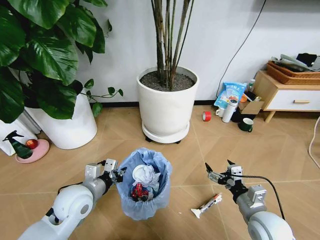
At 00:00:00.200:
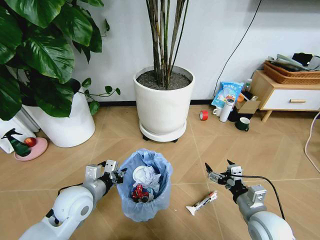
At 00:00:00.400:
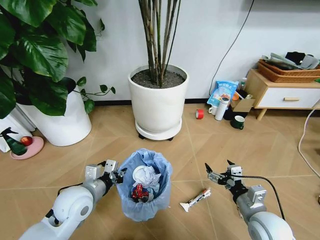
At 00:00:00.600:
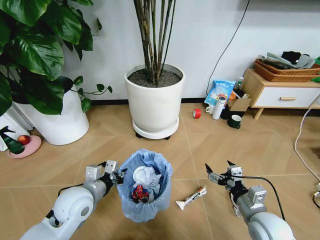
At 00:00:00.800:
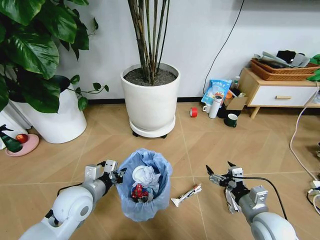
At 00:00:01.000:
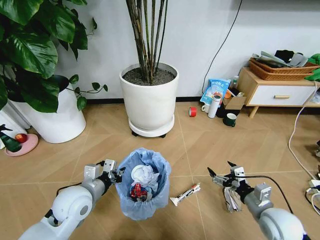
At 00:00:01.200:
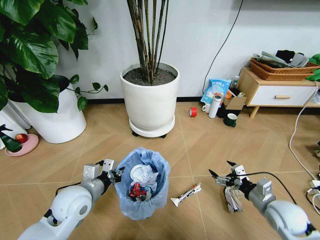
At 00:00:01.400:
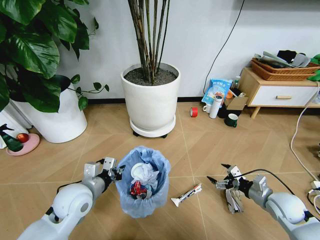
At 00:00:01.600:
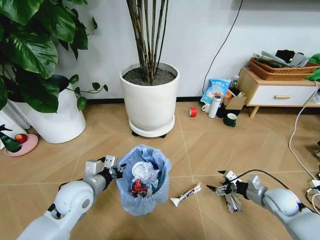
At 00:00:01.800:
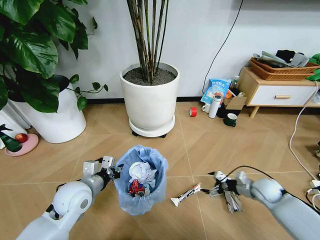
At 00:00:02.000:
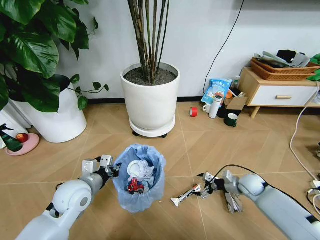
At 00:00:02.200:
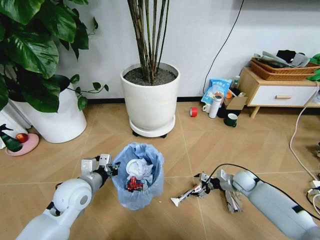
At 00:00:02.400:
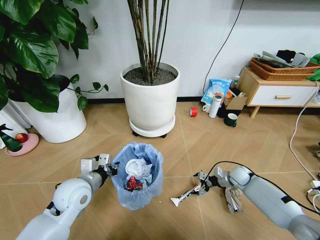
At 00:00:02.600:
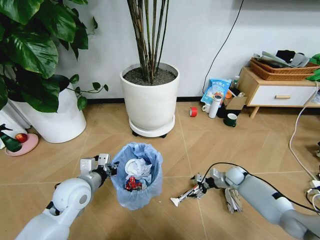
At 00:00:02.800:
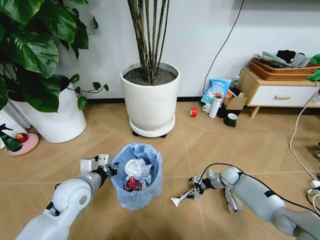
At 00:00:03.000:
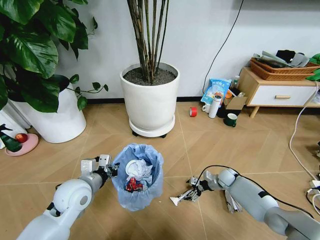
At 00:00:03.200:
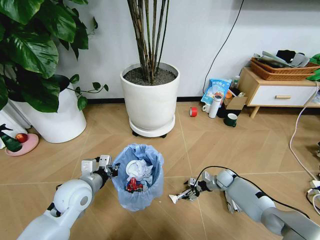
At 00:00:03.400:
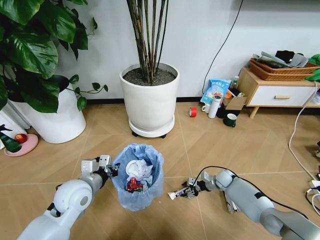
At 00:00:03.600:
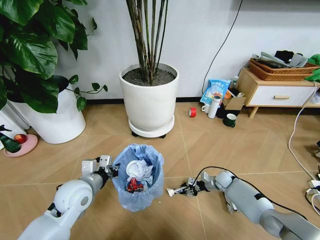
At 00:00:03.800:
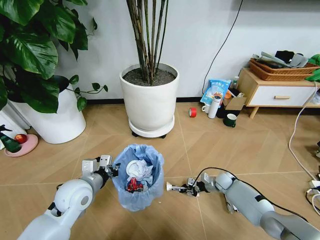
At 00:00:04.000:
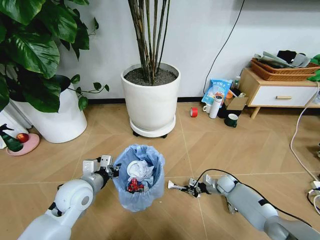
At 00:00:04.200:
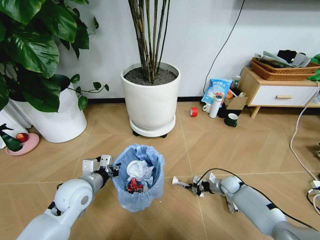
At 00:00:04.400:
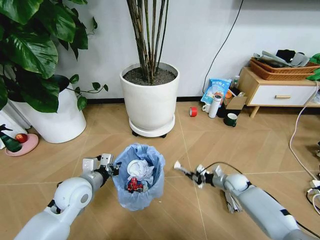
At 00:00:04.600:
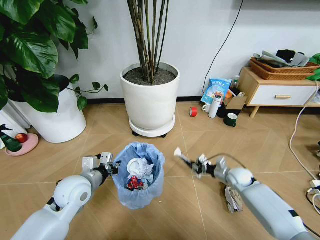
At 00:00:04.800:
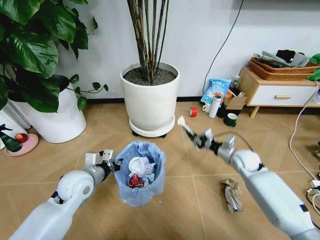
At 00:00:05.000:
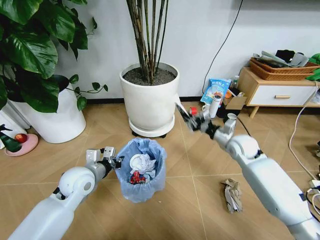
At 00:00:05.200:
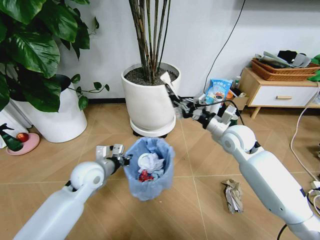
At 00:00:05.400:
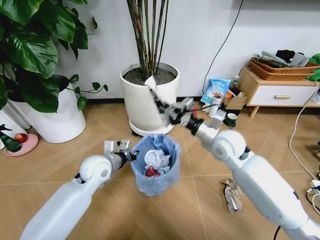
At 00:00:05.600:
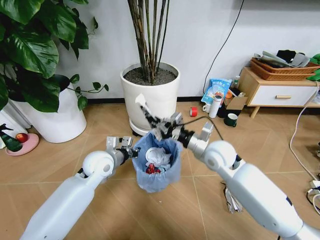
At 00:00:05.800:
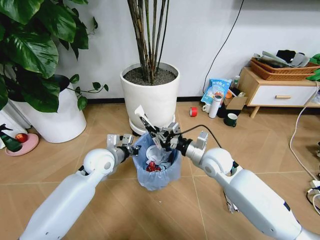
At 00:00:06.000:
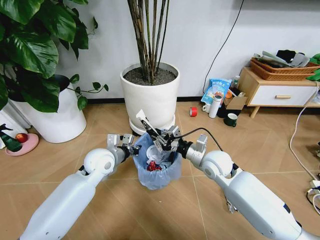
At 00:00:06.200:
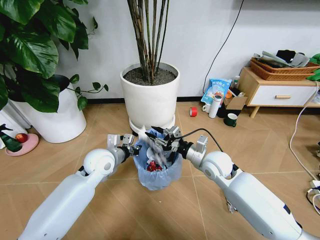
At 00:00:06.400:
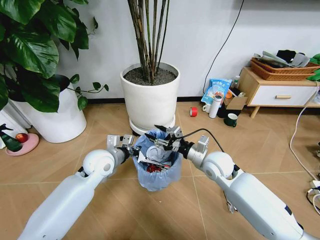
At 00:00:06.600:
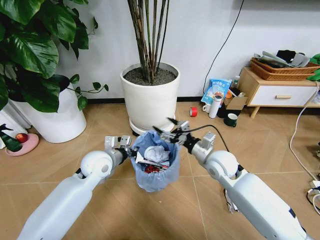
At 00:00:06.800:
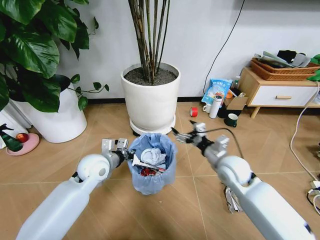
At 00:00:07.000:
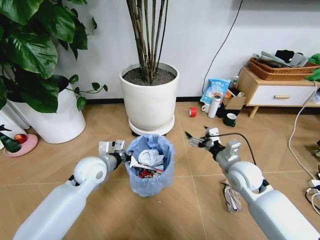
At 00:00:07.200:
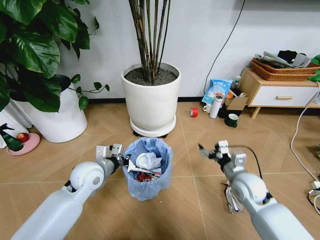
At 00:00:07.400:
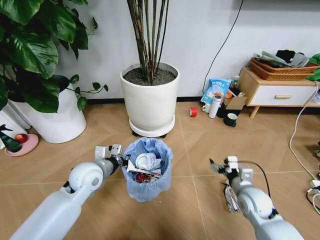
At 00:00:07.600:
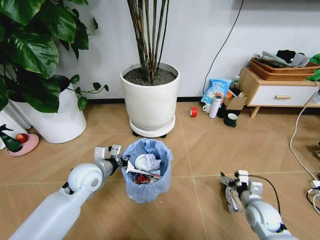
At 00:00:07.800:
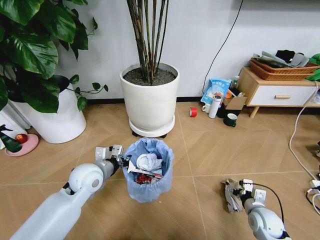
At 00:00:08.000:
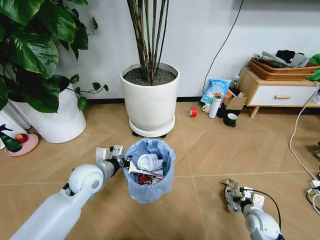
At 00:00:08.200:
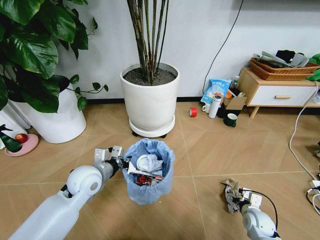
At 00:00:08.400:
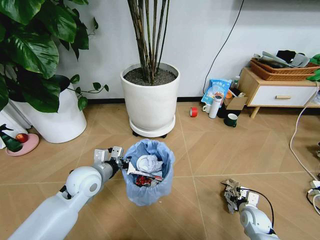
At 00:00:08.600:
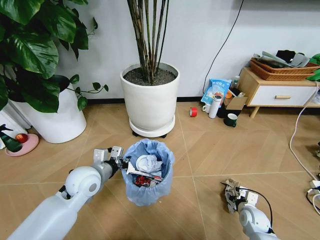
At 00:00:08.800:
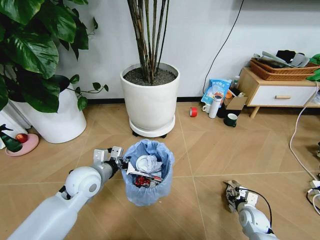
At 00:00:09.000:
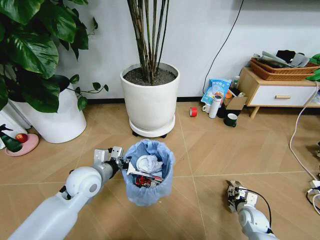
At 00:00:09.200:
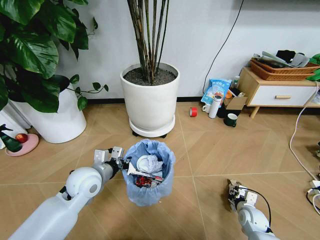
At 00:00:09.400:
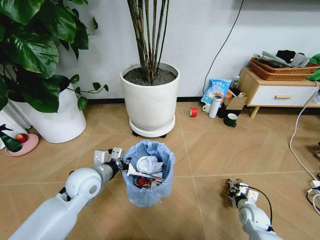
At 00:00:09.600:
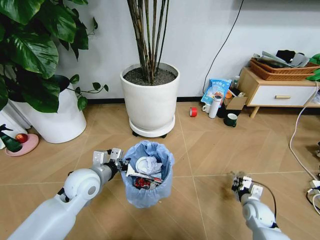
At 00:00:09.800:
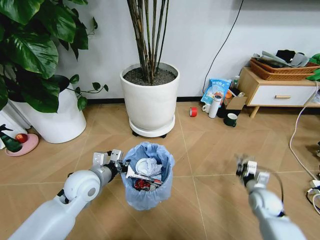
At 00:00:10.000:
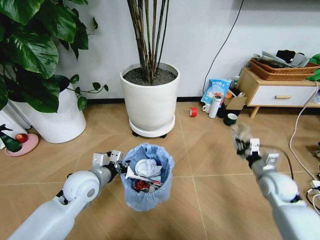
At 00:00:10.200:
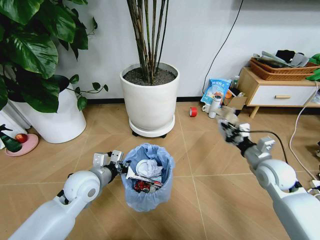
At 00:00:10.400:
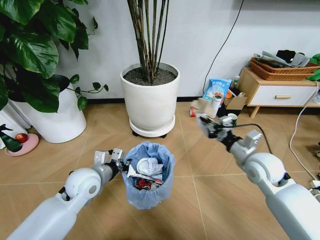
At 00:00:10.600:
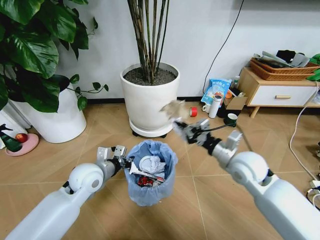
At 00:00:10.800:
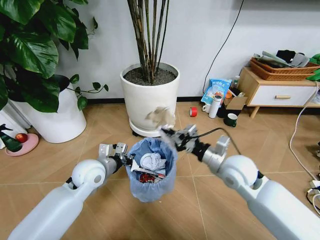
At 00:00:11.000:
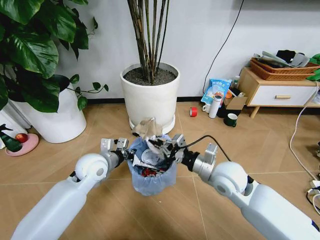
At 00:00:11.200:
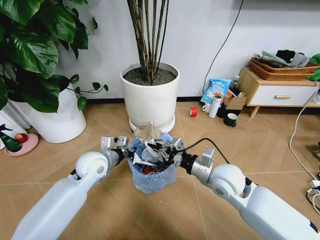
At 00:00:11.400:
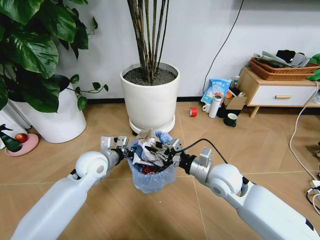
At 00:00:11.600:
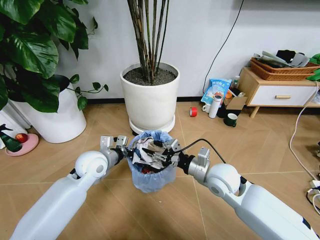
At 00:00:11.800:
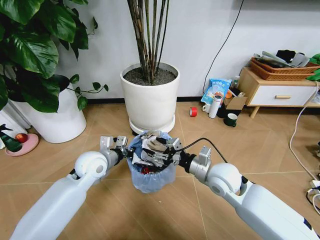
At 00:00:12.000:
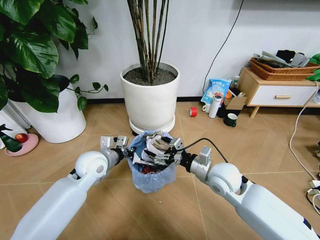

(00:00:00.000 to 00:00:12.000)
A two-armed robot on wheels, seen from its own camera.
Task of the whole recording: Pick up the trash bin and place the garbage on the floor into it.
00:00:00.000 - 00:00:01.600: The right gripper moves to the right, forward and downward, approximately 15 cm.
00:00:01.600 - 00:00:03.000: The right gripper shifts roughly 20 cm forward, downward and to the left.
00:00:03.000 - 00:00:04.400: The right gripper closes up.
00:00:04.400 - 00:00:06.000: The right gripper is displaced upward and to the left by approximately 25 cm. The left gripper heads forward and to the right, covering about 10 cm.
00:00:06.000 - 00:00:07.600: The left gripper travels backward by some 5 cm; the right gripper shifts roughly 25 cm to the right, downward and backward, and opens up.
00:00:07.600 - 00:00:09.000: The right gripper is displaced downward by roughly 10 cm, and closes up.
00:00:09.000 - 00:00:10.400: The right gripper is displaced upward by some 30 cm.
00:00:10.400 - 00:00:12.000: The right gripper heads to the left, covering some 10 cm, and opens. The left gripper travels forward by approximately 5 cm.

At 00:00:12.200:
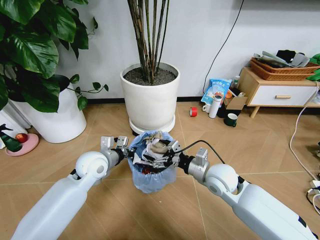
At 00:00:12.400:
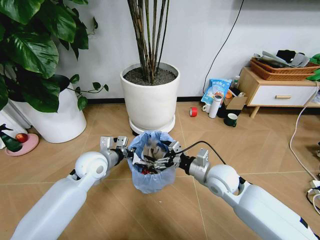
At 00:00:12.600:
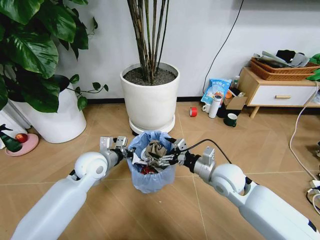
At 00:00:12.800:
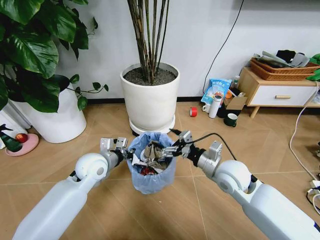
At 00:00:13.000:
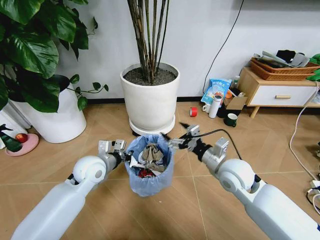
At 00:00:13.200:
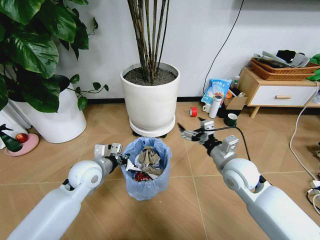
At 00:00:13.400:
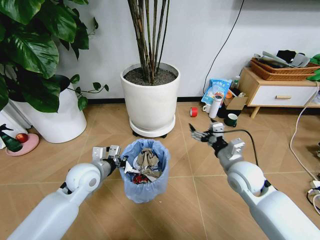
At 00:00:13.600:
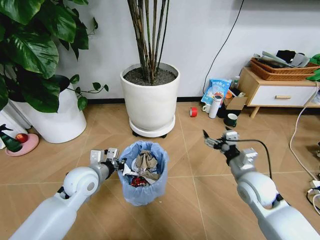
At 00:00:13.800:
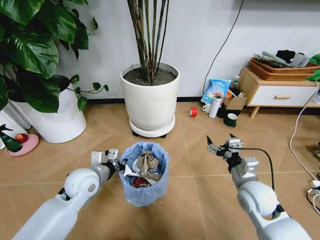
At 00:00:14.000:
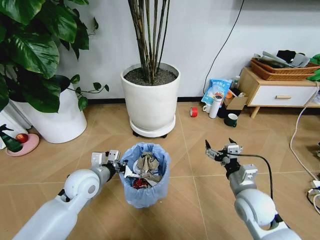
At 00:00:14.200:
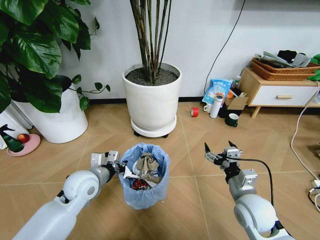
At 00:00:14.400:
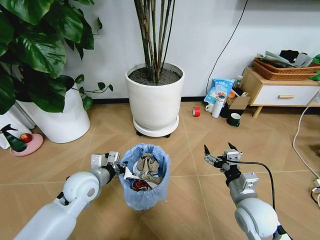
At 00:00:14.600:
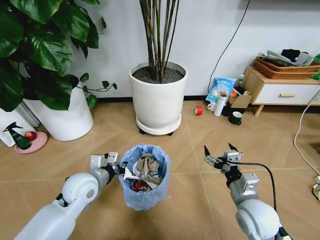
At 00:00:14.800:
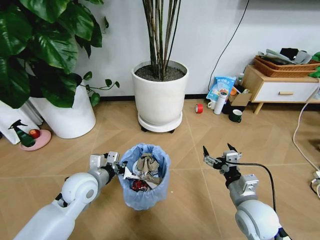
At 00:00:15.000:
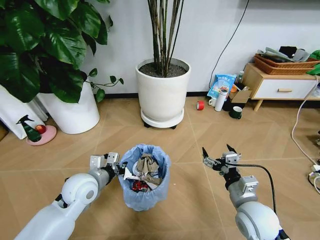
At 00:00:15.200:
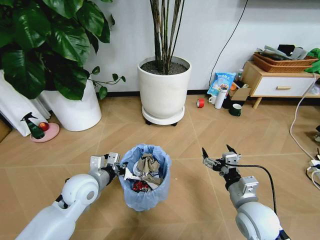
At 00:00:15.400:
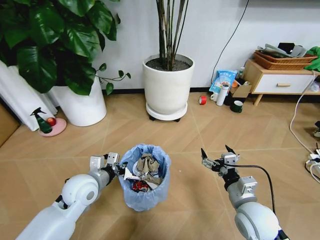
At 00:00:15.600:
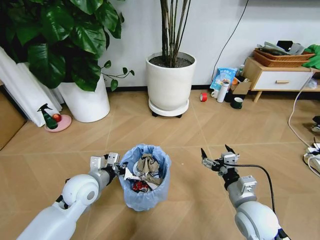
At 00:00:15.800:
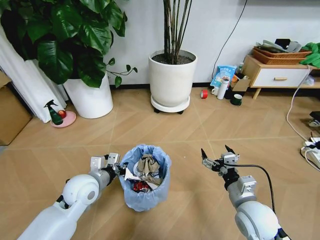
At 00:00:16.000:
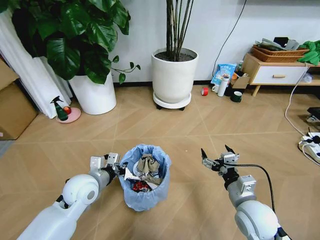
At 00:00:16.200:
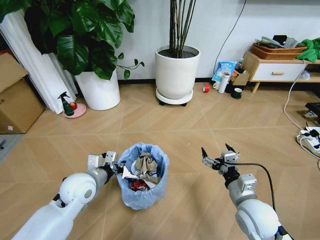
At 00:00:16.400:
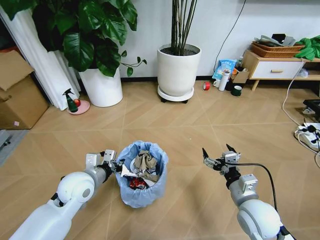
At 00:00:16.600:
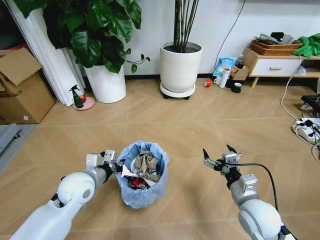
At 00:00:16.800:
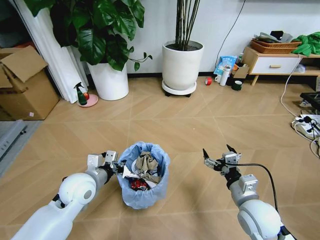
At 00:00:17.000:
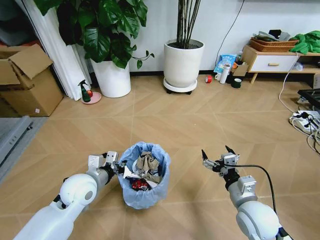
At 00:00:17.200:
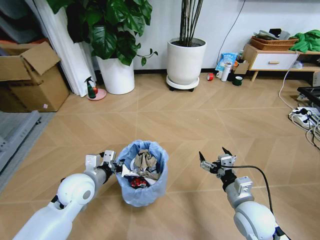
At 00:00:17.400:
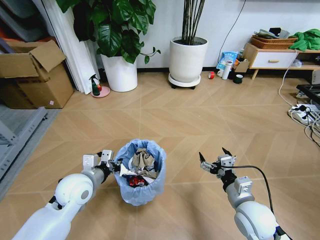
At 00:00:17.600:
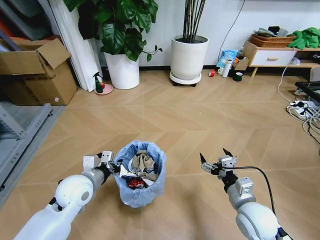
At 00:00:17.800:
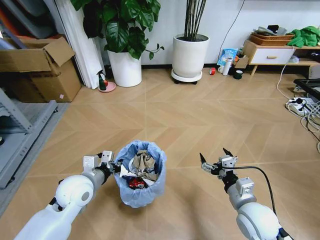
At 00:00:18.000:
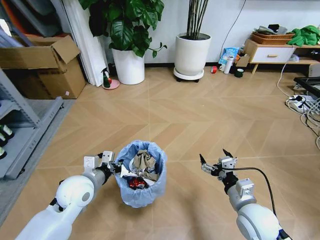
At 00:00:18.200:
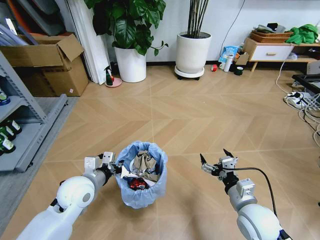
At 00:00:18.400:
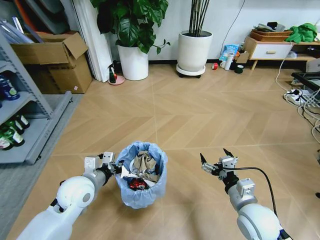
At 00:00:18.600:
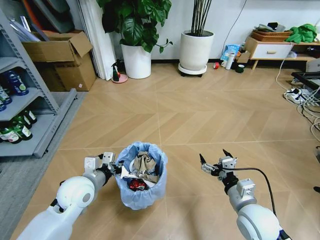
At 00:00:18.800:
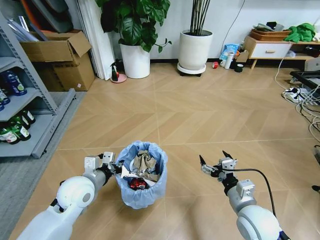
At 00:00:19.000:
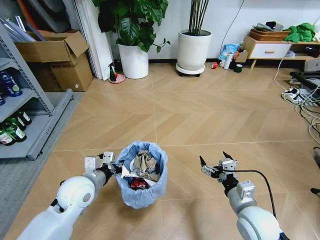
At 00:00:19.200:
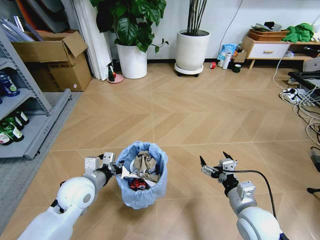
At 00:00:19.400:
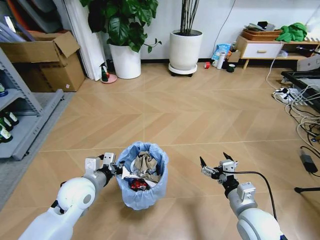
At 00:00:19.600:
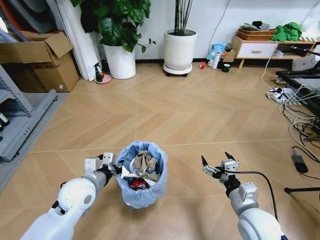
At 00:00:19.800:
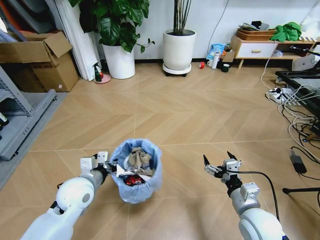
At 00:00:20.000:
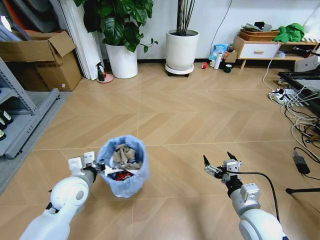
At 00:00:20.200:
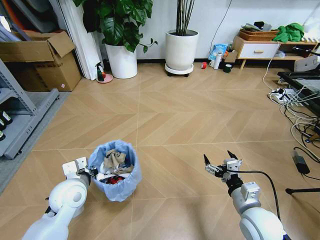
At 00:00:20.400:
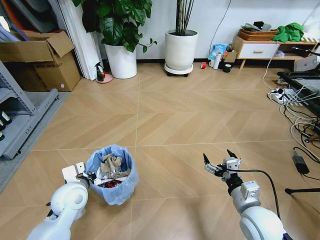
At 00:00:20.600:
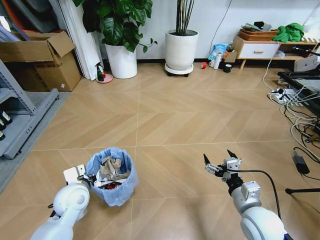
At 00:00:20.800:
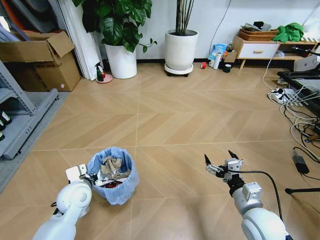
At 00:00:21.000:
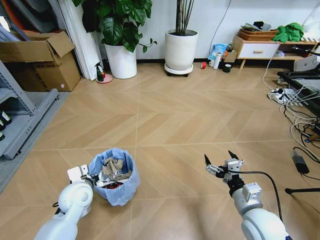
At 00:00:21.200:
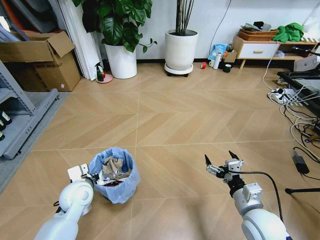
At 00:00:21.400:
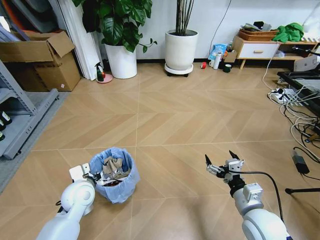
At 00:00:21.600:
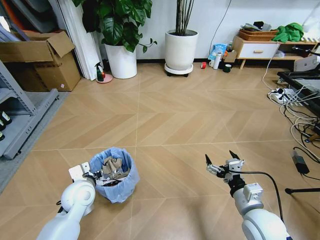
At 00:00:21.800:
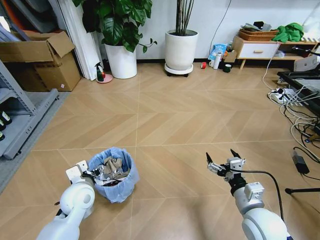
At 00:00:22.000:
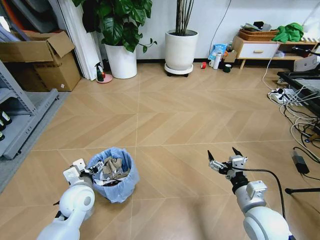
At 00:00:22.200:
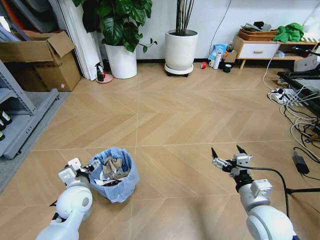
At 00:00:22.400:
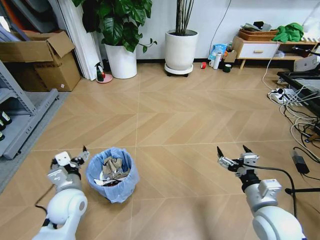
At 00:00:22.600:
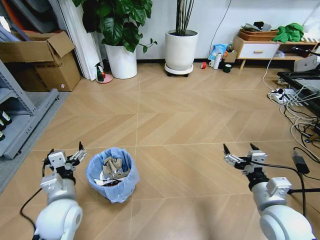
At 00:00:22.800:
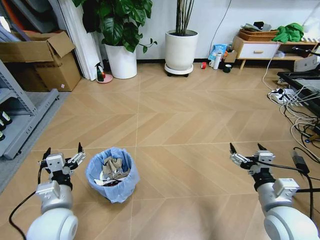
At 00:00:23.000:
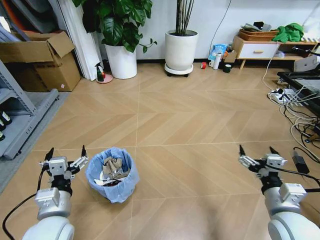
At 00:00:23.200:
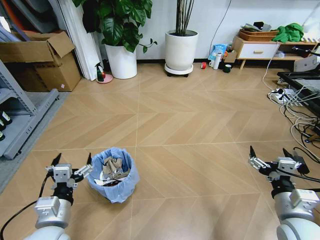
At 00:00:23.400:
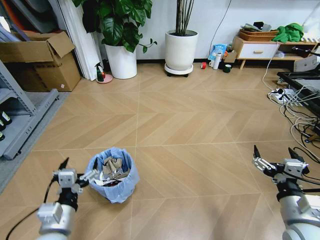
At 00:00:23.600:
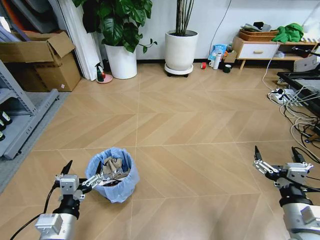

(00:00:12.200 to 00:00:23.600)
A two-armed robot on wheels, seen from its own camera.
Task of the whole recording: Pick up the trash bin and place the garbage on the floor into it.
00:00:12.200 - 00:00:13.600: The left gripper moves some 5 cm. Meanwhile the right gripper goes approximately 10 cm to the right.
00:00:13.600 - 00:00:15.000: The right gripper moves backward, roughly 10 cm.
00:00:19.400 - 00:00:20.800: The left gripper moves about 5 cm.
00:00:20.800 - 00:00:22.200: The left gripper opens.
00:00:22.200 - 00:00:23.600: The right gripper heads backward, covering approximately 5 cm; the left gripper goes about 15 cm backward.
